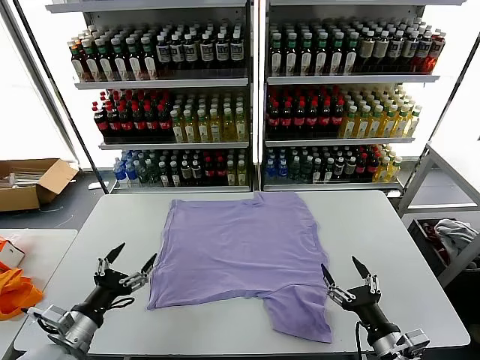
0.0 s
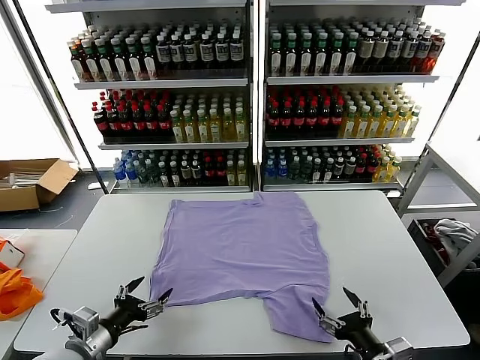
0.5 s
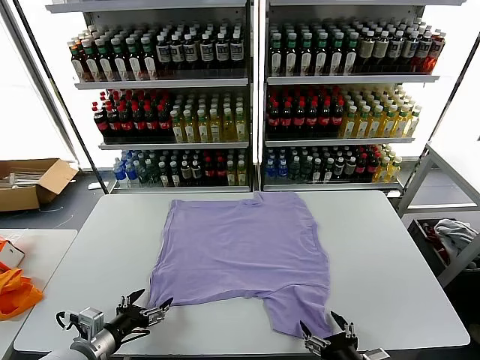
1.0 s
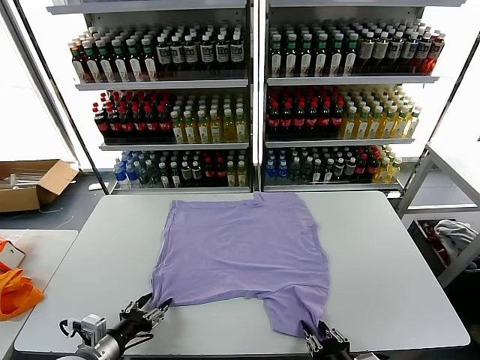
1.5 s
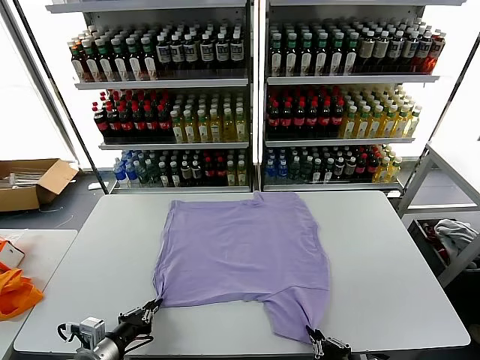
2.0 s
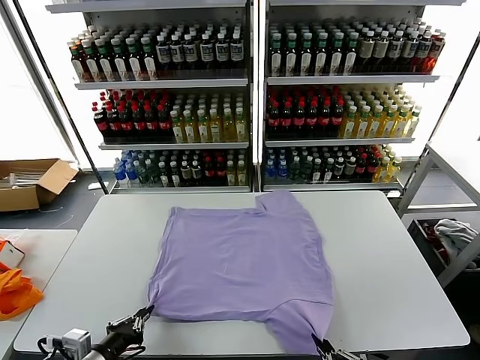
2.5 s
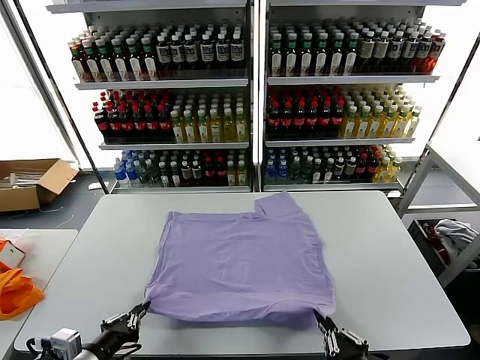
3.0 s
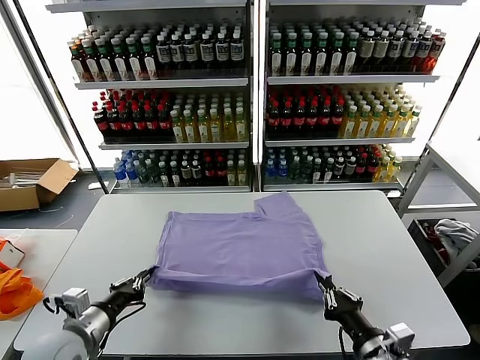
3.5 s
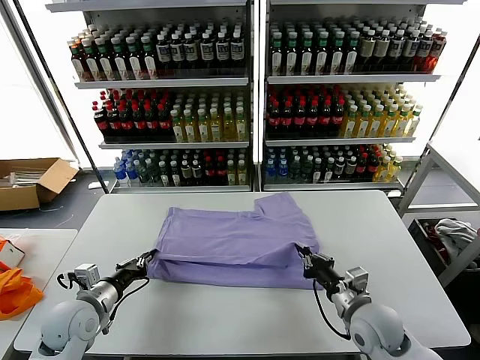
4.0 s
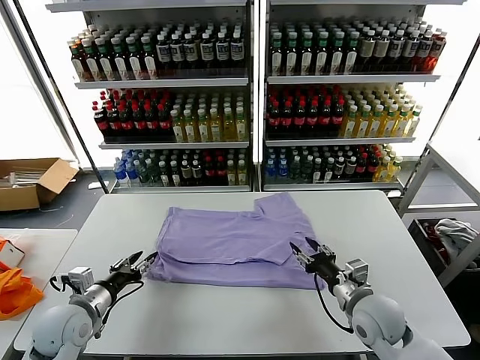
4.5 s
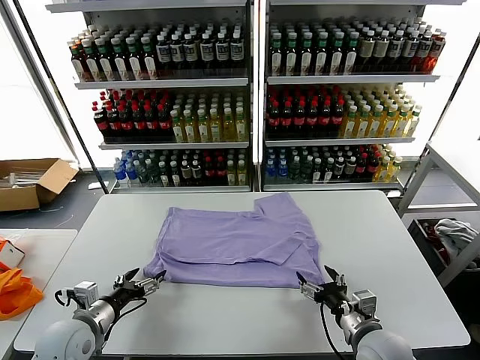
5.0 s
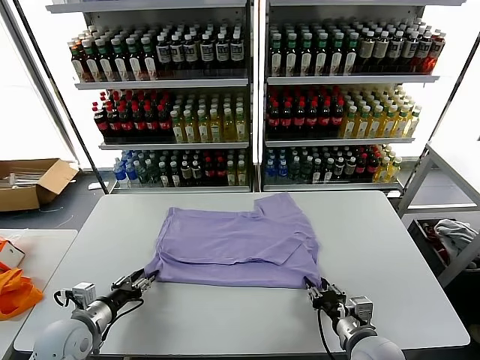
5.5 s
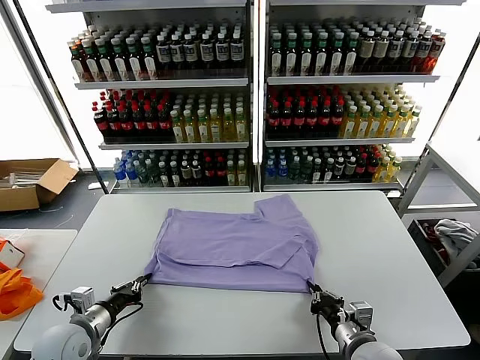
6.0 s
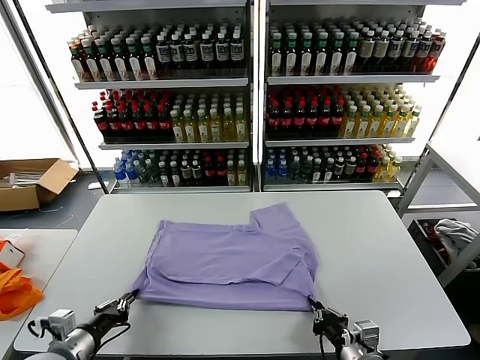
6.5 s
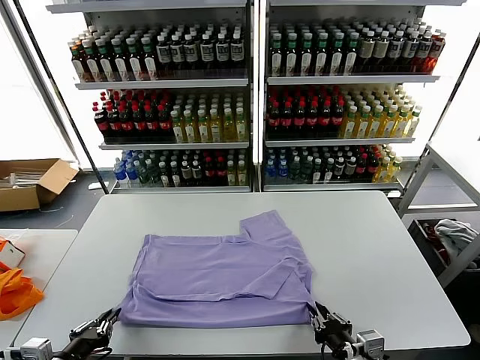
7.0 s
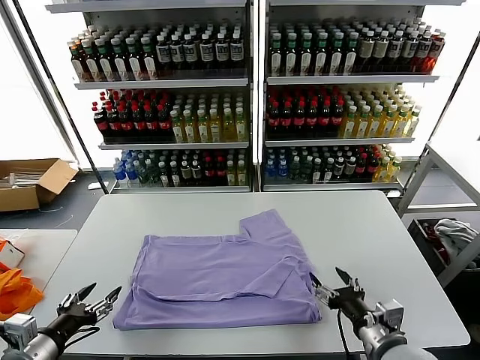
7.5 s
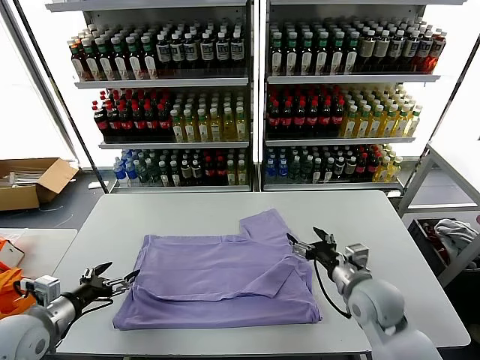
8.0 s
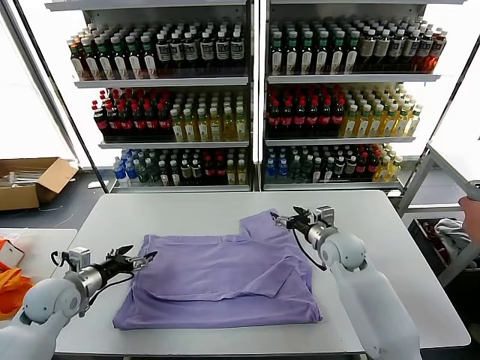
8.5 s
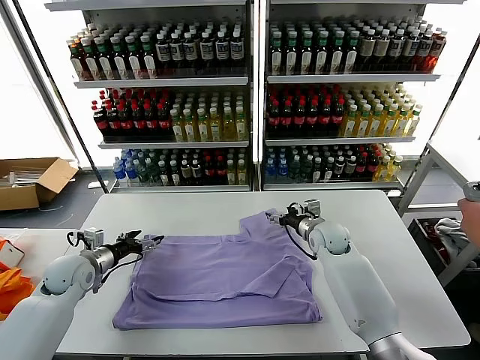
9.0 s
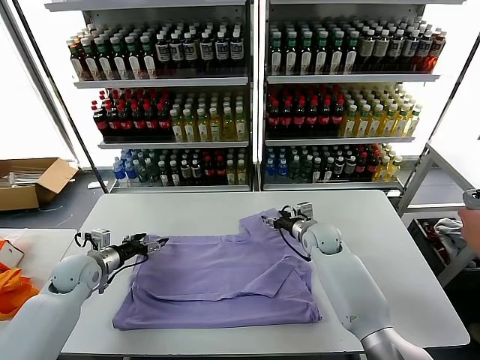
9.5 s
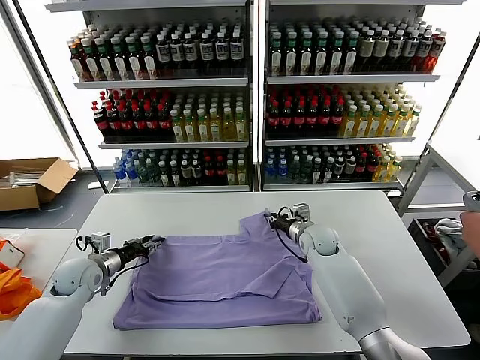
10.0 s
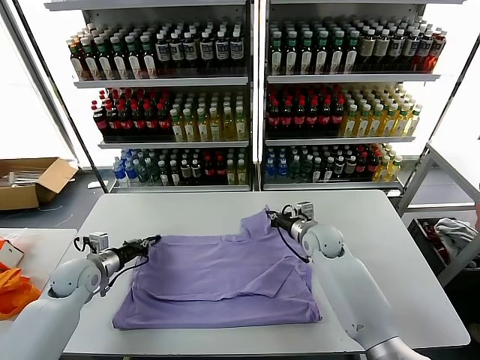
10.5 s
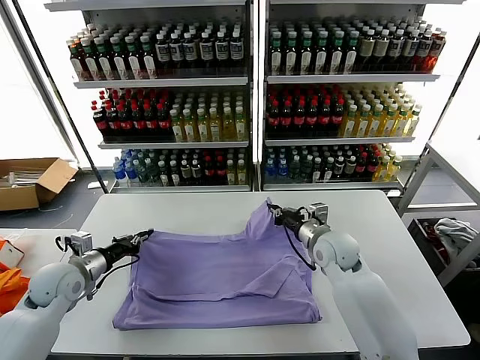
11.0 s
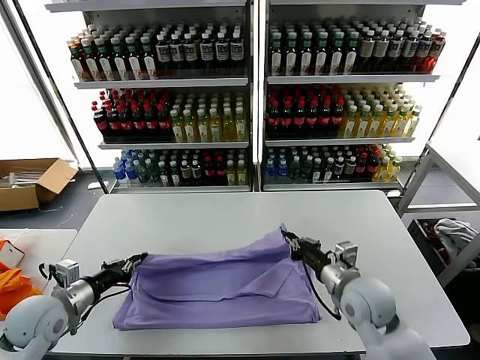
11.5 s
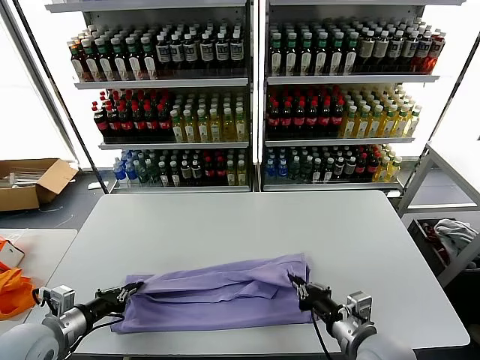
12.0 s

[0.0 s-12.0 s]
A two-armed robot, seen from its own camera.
Task of the whole recording: fold and organize the clothes.
Step, 0.0 to 2.0 s: use both grippers simultaneously to clamp the lower edge of the clothing fabric.
Step, 2.5 to 4.0 s: use both grippers to drag the lower edge of the fabric forward and fold it over the upper edge.
Step, 4.5 to 7.0 s: Drag the clothes downward with both gripper.
Step, 7.5 to 10.5 s: use both grippers simultaneously to clamp the upper edge of the clothing fabric.
2.0 to 4.0 s: The right gripper shifts about 20 cm forward. Meanwhile the left gripper travels forward by roughly 10 cm.
4.0 to 6.0 s: The right gripper heads backward, covering about 10 cm, and opens and closes again. Meanwhile the left gripper ends up roughly 5 cm from where it was, and opens and closes again.
6.0 to 8.0 s: The right gripper travels forward and upward by roughly 15 cm, and opens. The left gripper goes approximately 5 cm upward, travels backward and back again, roughly 10 cm each way, and opens.
8.0 to 10.0 s: Both grippers move forward, approximately 15 cm. The left gripper closes. The right gripper closes its fingers.
10.0 to 12.0 s: The left gripper travels backward by approximately 15 cm, and closes, while the right gripper is displaced backward by roughly 30 cm.

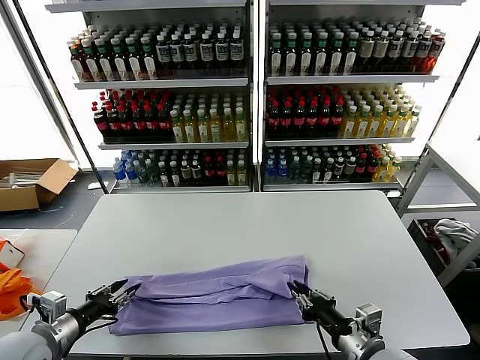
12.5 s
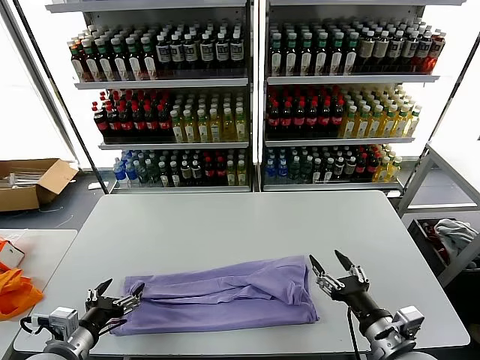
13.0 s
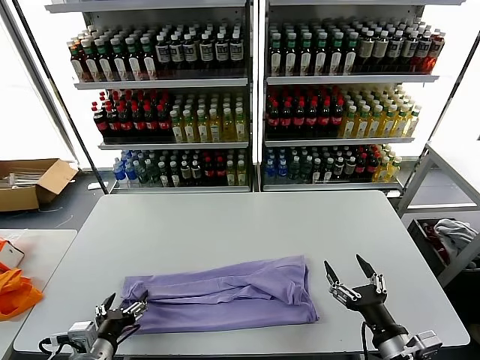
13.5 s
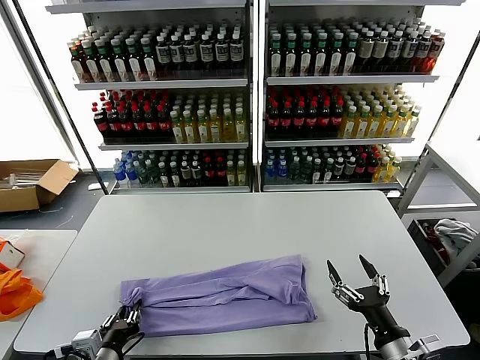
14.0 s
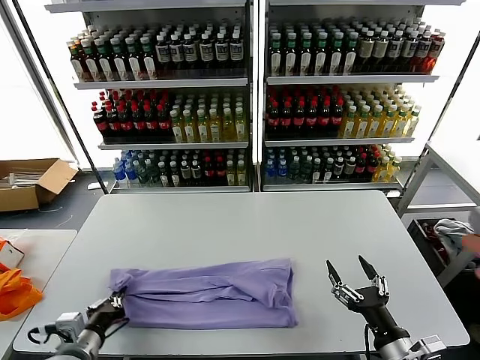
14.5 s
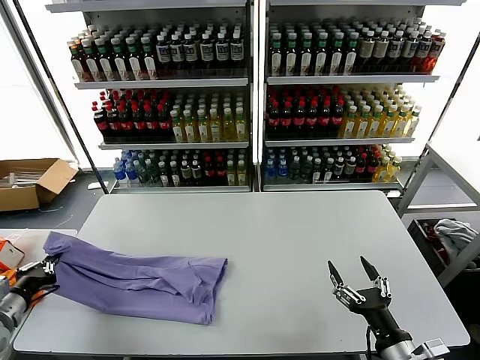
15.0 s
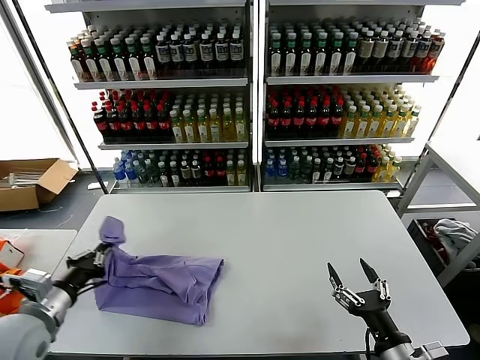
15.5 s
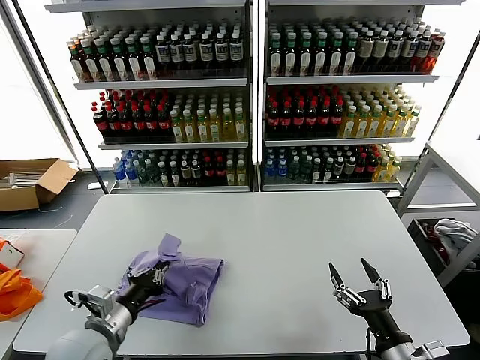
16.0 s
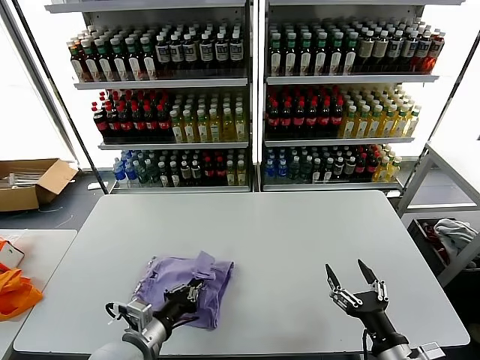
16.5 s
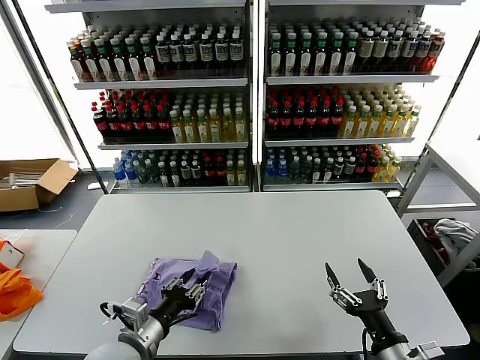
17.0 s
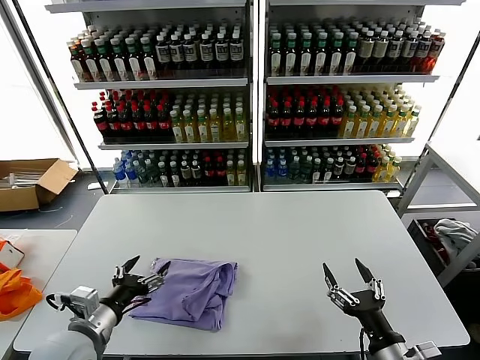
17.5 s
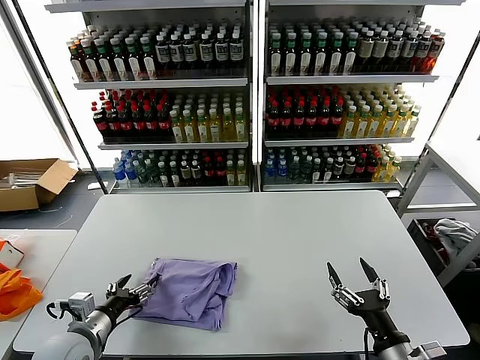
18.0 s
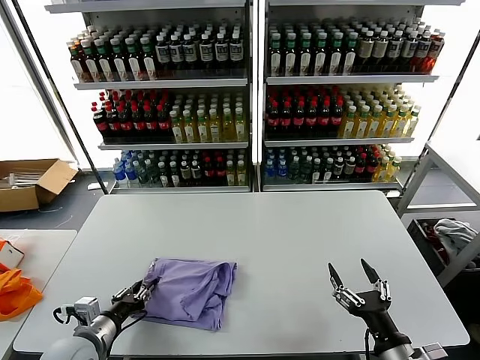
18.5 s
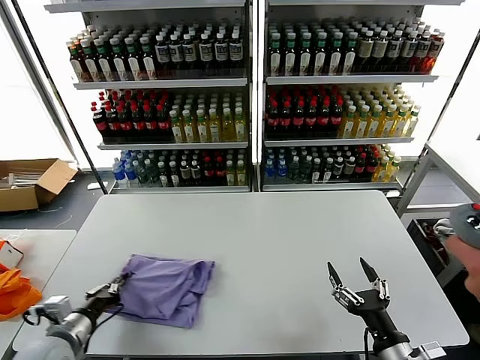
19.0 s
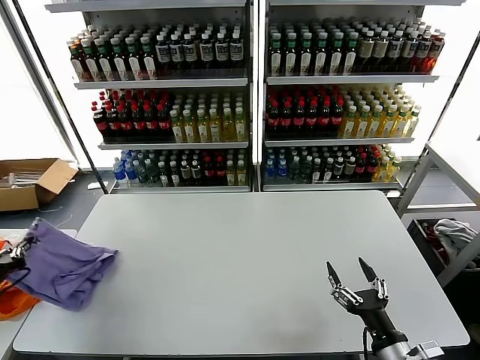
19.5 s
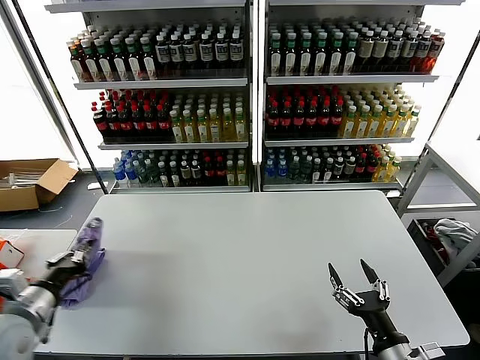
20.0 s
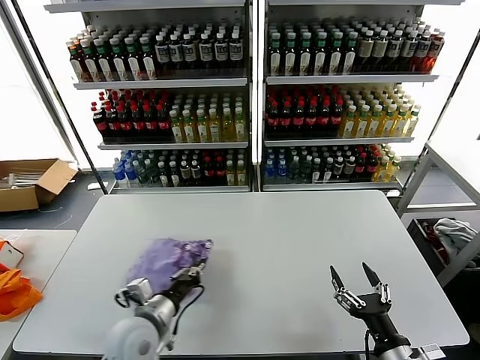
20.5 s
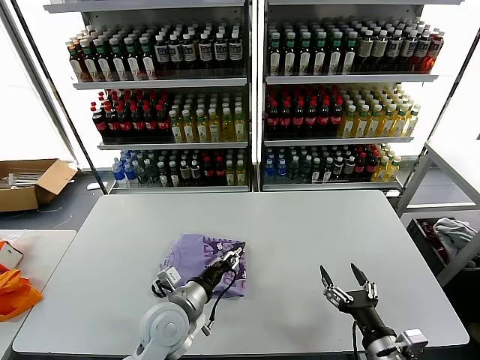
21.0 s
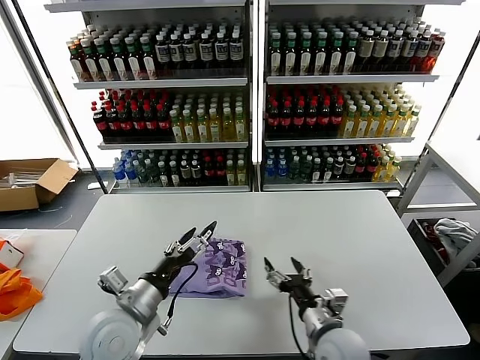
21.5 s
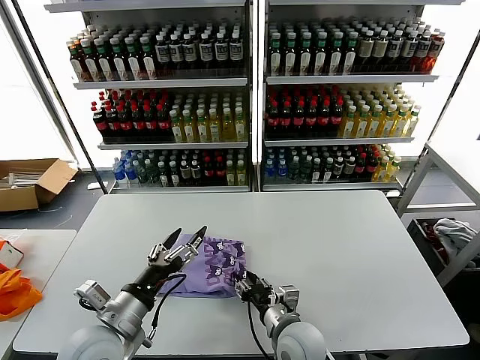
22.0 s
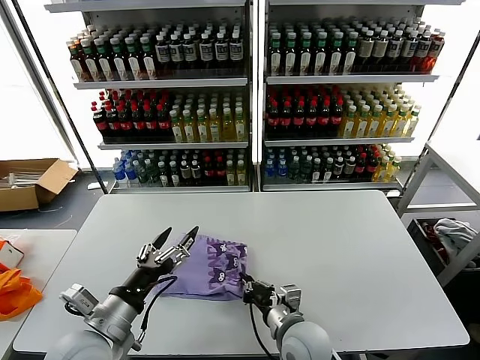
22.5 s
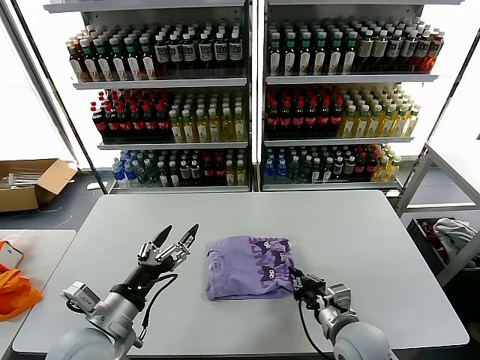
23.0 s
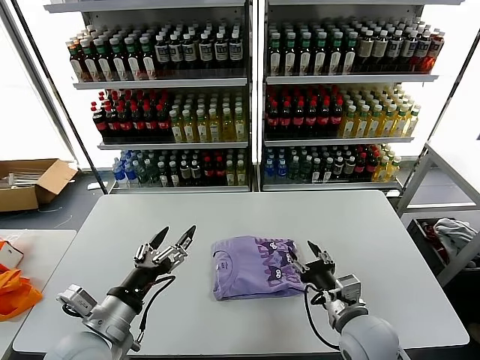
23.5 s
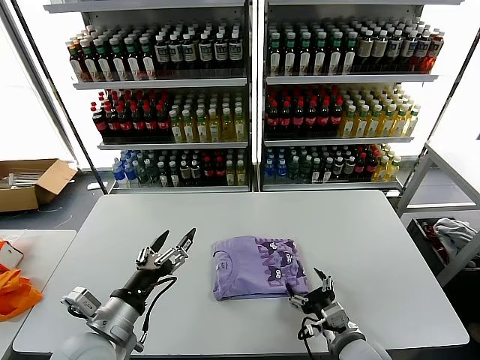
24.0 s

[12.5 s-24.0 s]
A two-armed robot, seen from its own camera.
Task of the whole recording: fold and organize the clothes.
Step, 13.0 to 14.0 s: use the left gripper to clamp the left edge of the fabric.
Step, 14.5 to 17.0 s: use the left gripper to drag the left edge of the fabric to the left and folds it over the right edge.
Step, 17.5 to 21.0 s: Flip the folded clothes over with left gripper.
12.5 to 14.5 s: The two grippers go some 5 cm to the right. The right gripper opens its fingers. Meanwhile the left gripper closes up.
14.5 to 16.5 s: The left gripper goes roughly 10 cm to the right.
16.5 to 18.5 s: The left gripper shifts some 10 cm to the left, and opens up.
18.5 to 20.0 s: The left gripper moves upward and to the left, about 15 cm, and closes its fingers.
20.0 to 22.0 s: The left gripper goes some 20 cm to the right, and opens up. Meanwhile the right gripper goes approximately 20 cm to the left and forward, and closes up.
22.0 to 24.0 s: The right gripper heads to the right, covering some 10 cm, and opens its fingers.

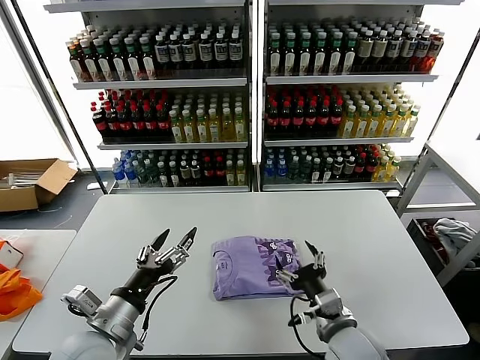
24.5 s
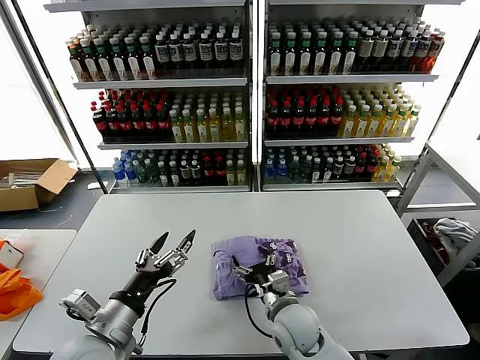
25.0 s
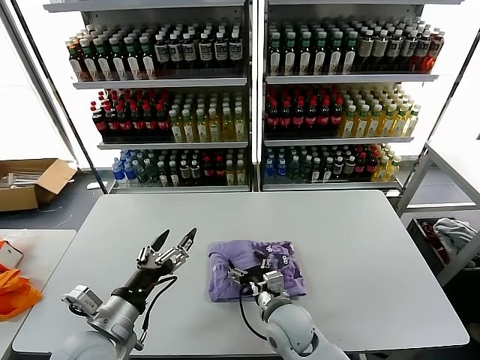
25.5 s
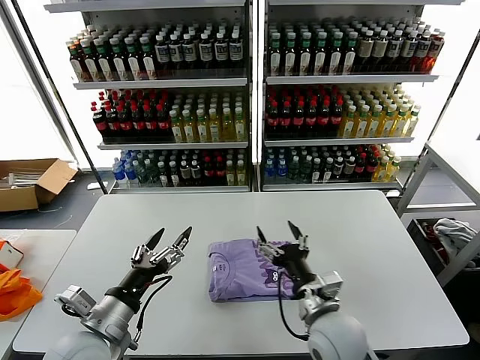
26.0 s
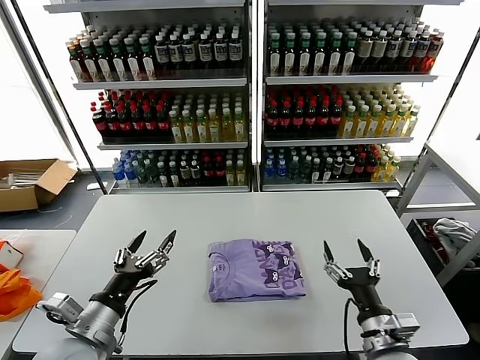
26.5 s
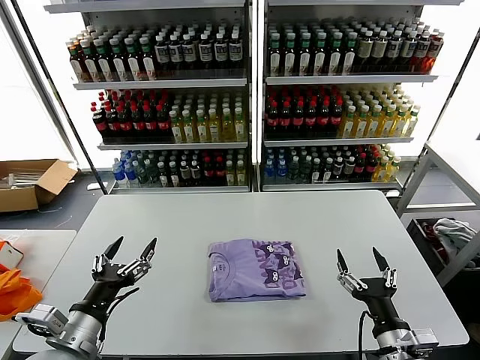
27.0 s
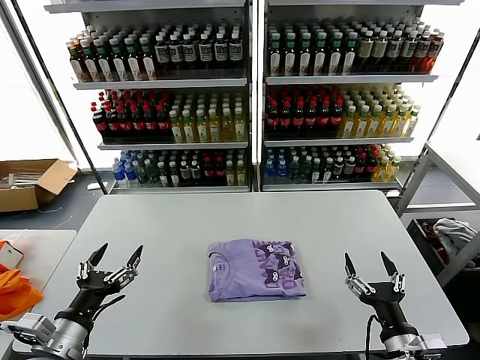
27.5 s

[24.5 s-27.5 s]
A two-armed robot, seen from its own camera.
Task of the whole recording: fold and organize the clothes.
26.0 to 27.5 s: The left gripper shifts approximately 5 cm to the left. Meanwhile the right gripper goes about 20 cm to the right and backward.
